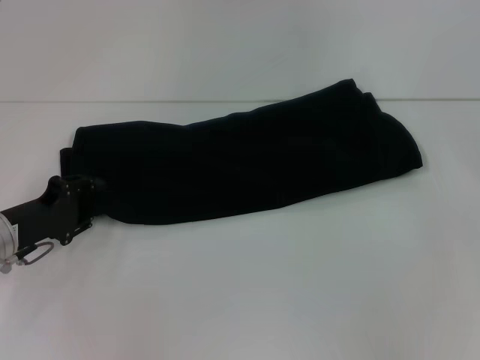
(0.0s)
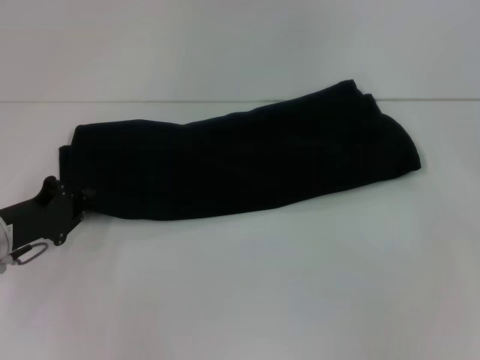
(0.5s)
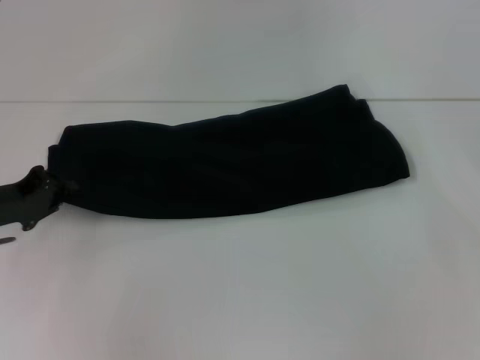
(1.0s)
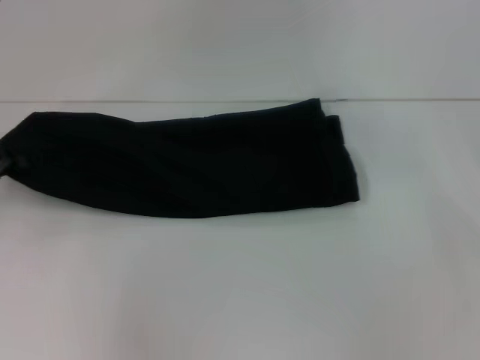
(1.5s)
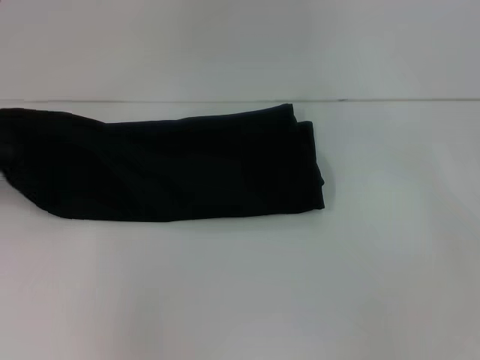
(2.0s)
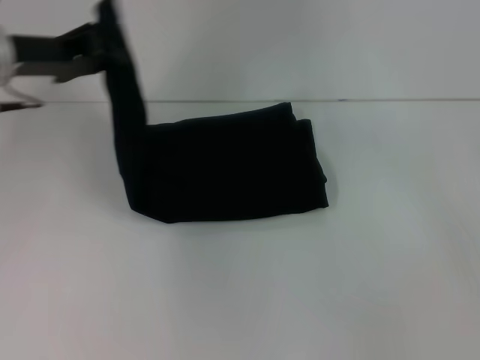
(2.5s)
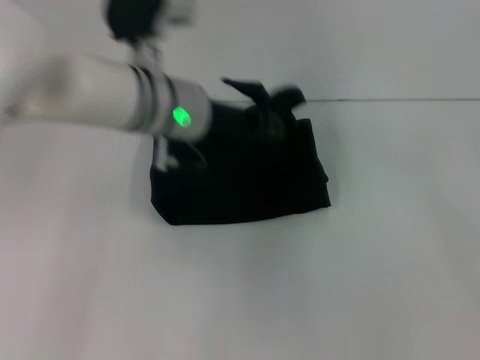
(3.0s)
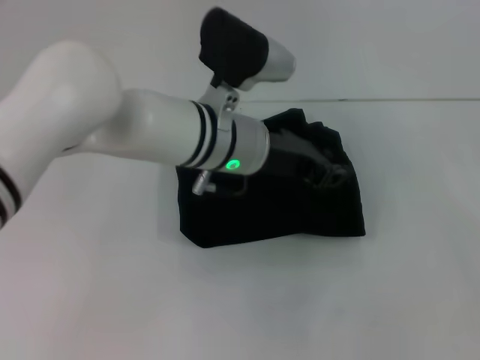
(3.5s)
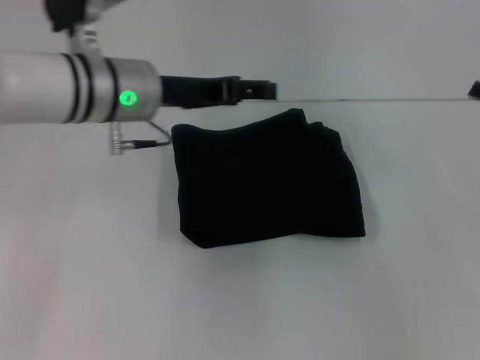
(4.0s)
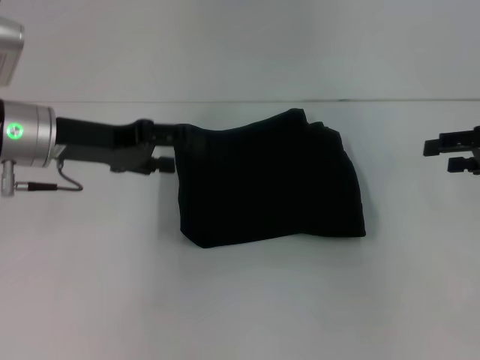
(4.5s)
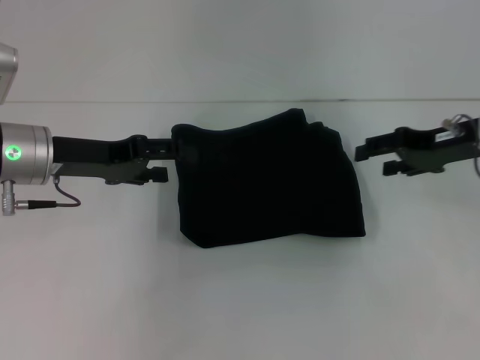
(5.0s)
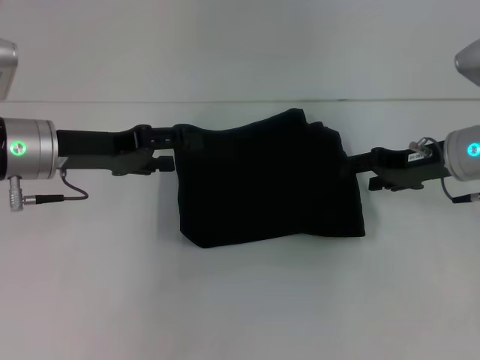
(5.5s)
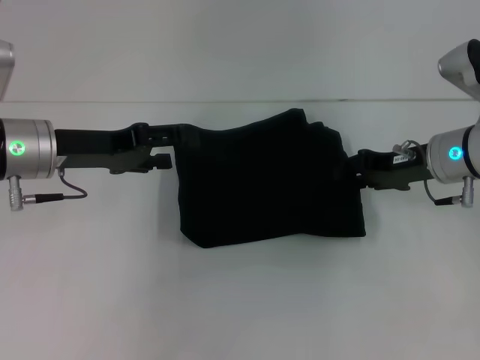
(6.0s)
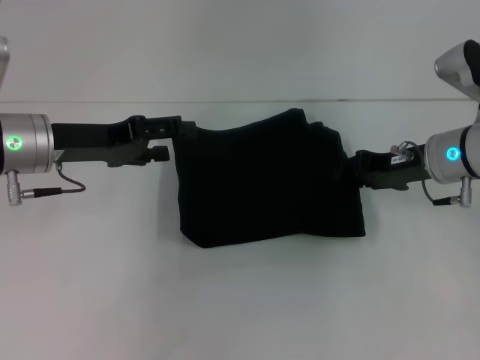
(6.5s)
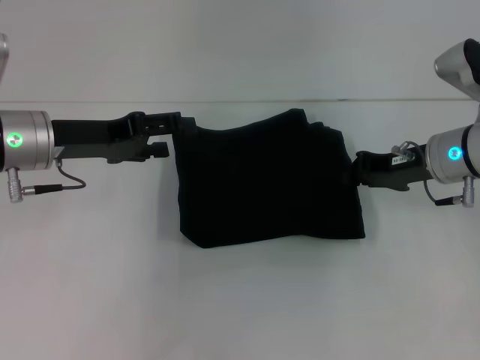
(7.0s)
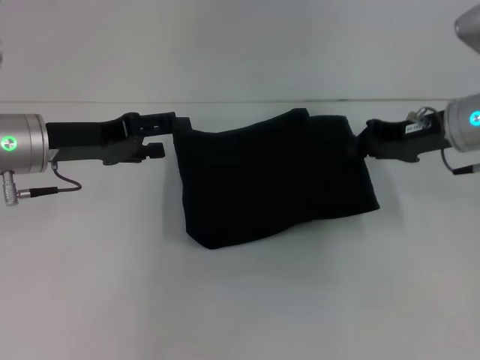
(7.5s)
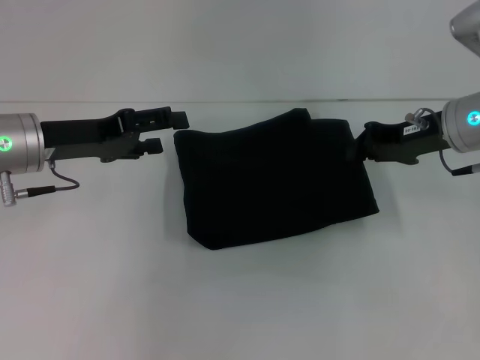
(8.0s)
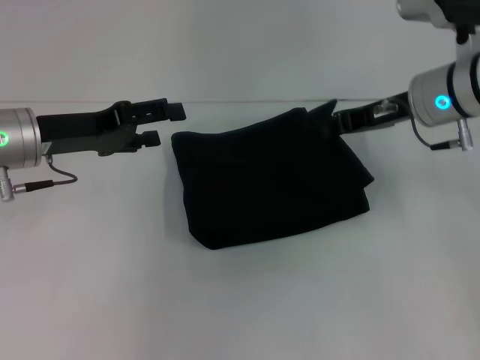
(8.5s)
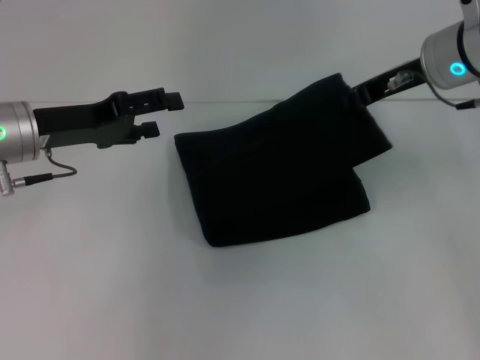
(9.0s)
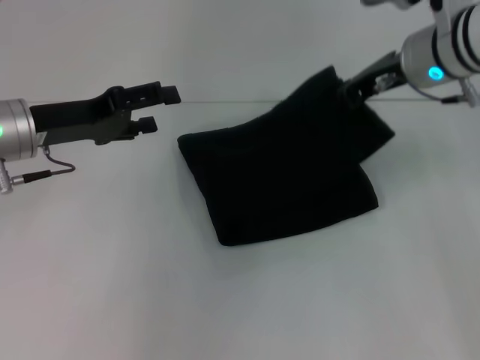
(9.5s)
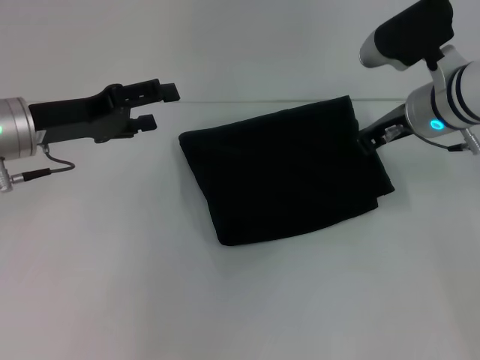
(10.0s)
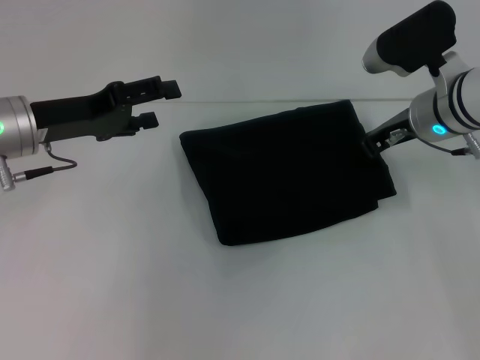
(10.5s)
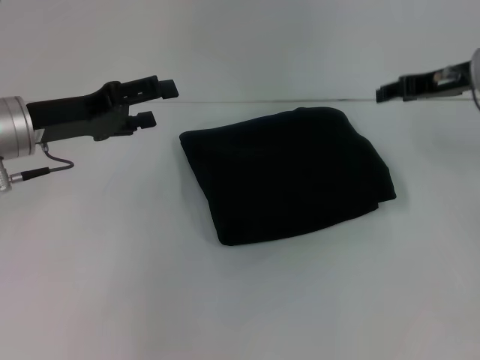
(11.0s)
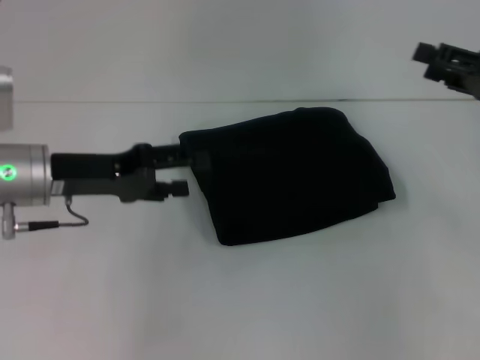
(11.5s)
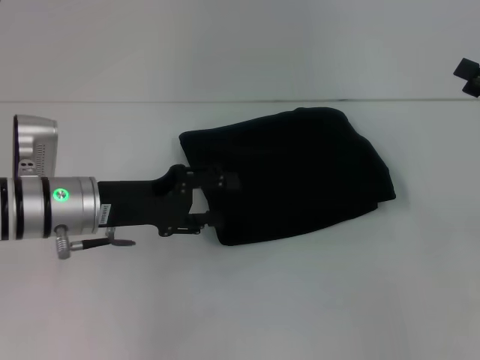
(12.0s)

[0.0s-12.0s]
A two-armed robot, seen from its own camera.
Step, 0.0s to 3.5s: Fold the clothes with your left hand.
0.0s to 2.0s: The left gripper heads upward and to the left, covering approximately 10 cm, and closes its fingers.
2.0s to 4.0s: The left gripper moves to the right, roughly 20 cm, and opens up.
4.0s to 6.0s: The right gripper heads to the left, covering roughly 15 cm; the left gripper shifts about 10 cm to the left.
6.0s to 8.0s: The right gripper closes up.
10.0s to 12.0s: The right gripper goes roughly 20 cm to the right and backward, and opens its fingers. The left gripper shifts roughly 10 cm downward and to the right.

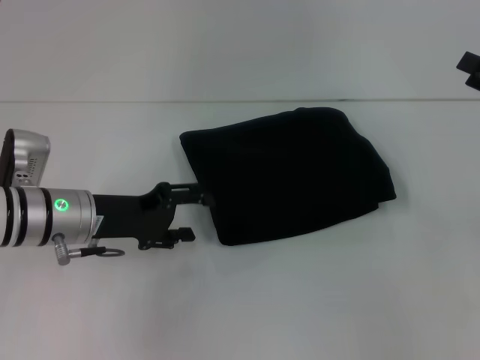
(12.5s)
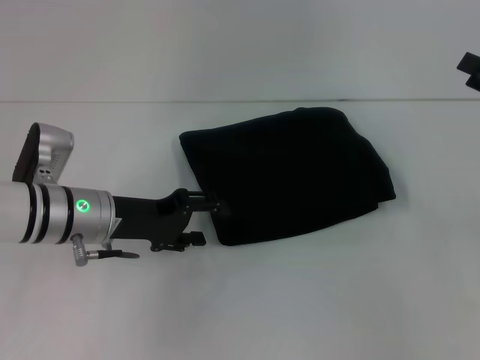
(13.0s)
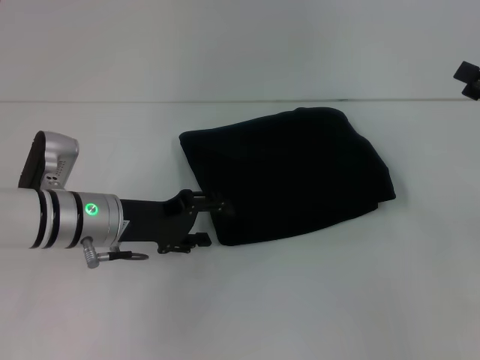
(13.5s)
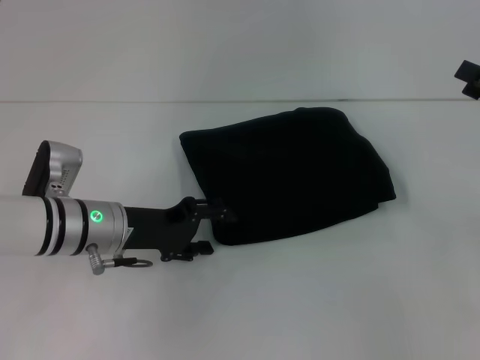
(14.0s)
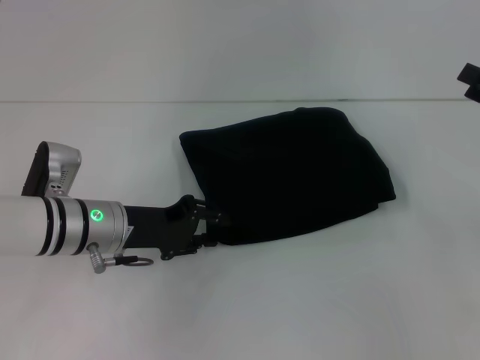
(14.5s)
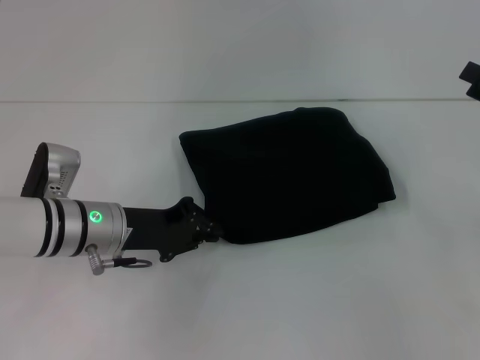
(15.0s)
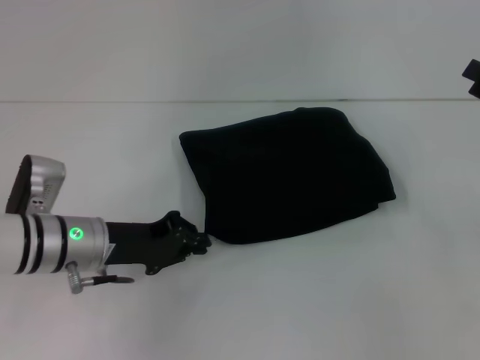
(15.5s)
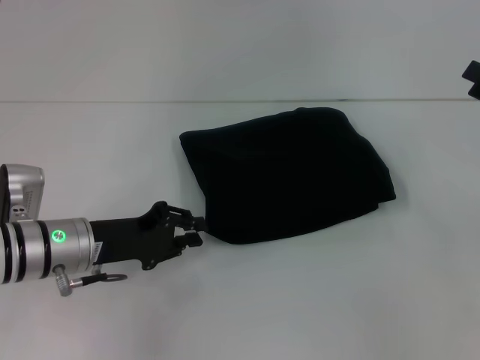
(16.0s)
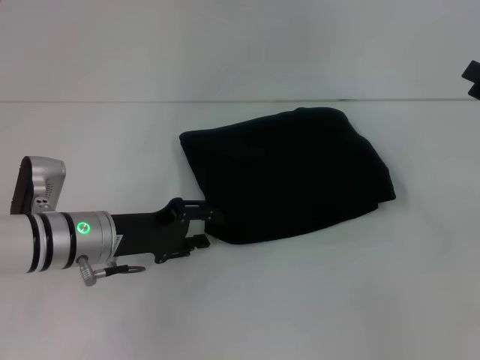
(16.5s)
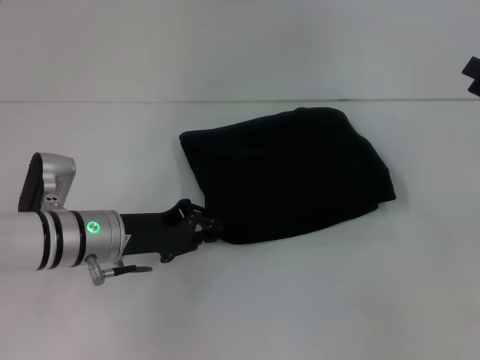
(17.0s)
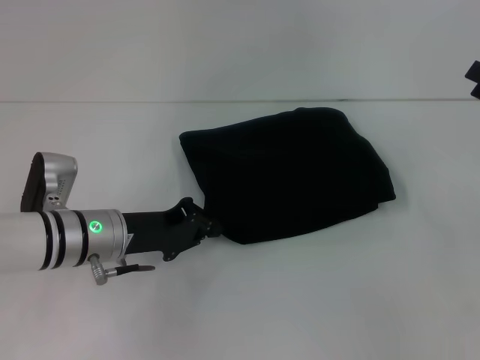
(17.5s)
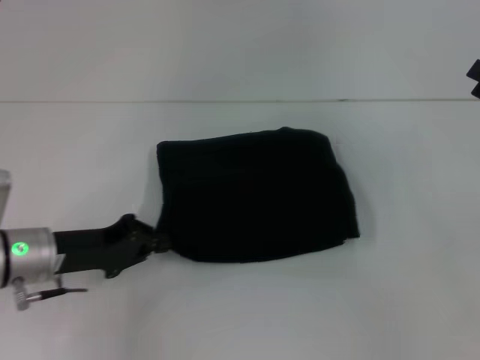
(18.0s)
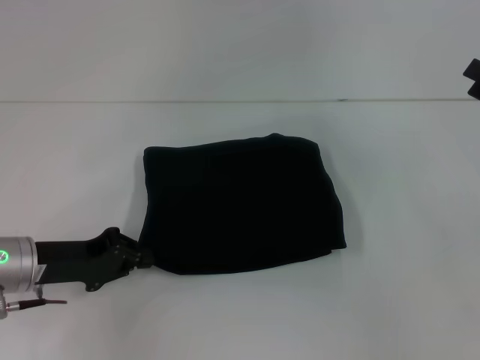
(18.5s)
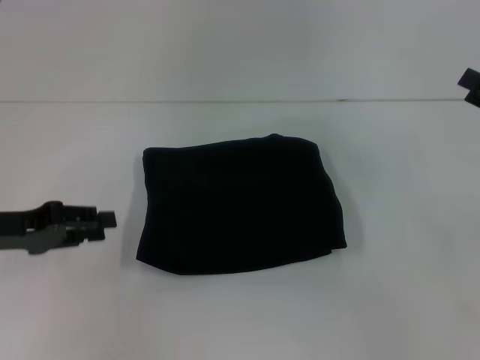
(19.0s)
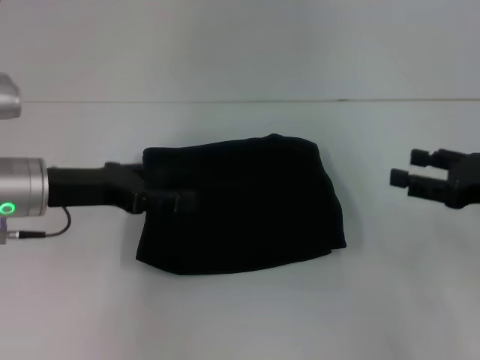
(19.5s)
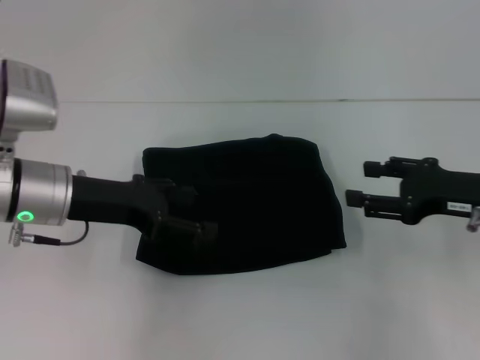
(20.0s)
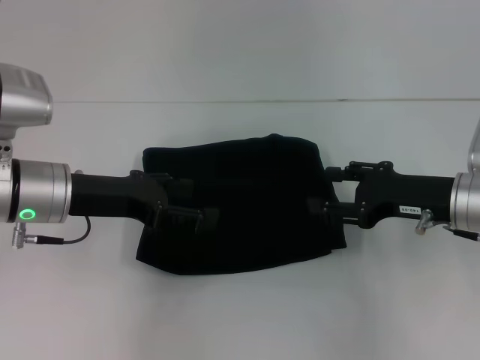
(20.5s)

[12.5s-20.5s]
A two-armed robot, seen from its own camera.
12.5s to 14.5s: The grippers move only a little.
14.5s to 16.5s: The left gripper closes, then reopens.
16.5s to 18.5s: The left gripper shifts about 5 cm to the left, and closes.
18.5s to 20.5s: The right gripper moves to the left, roughly 10 cm; the left gripper travels upward by some 5 cm, and opens its fingers.

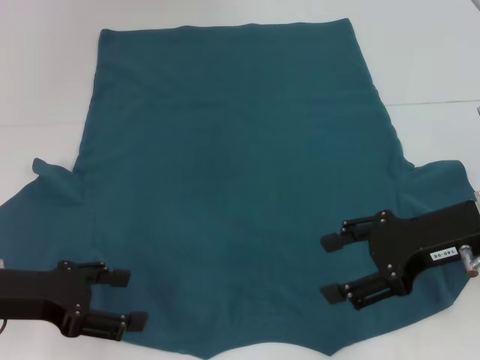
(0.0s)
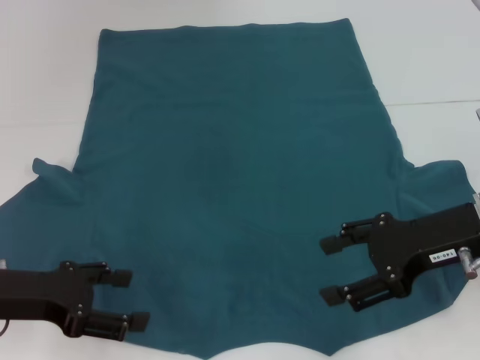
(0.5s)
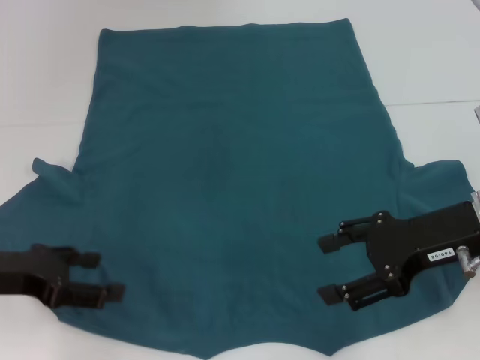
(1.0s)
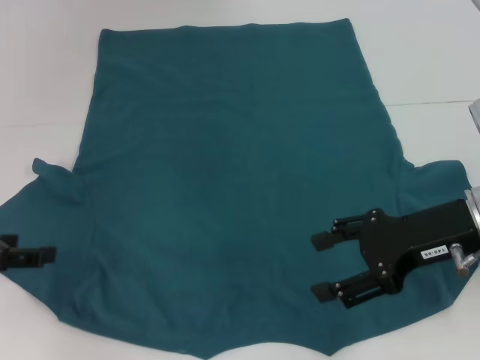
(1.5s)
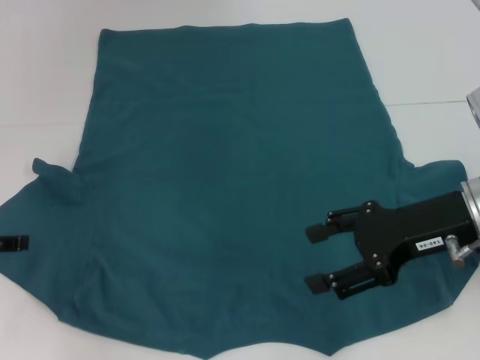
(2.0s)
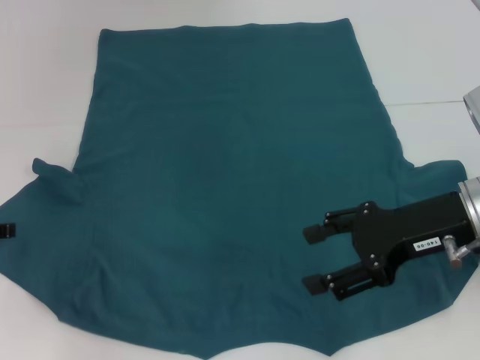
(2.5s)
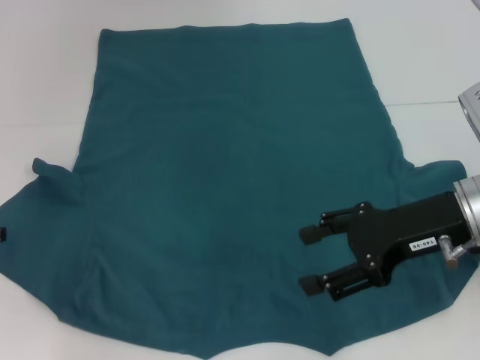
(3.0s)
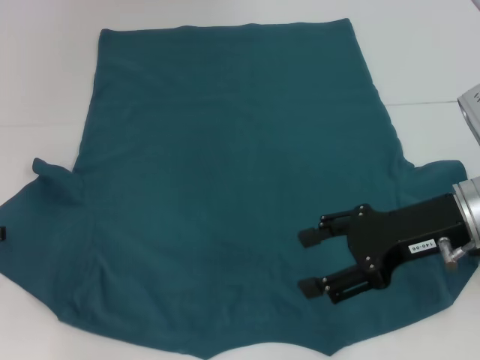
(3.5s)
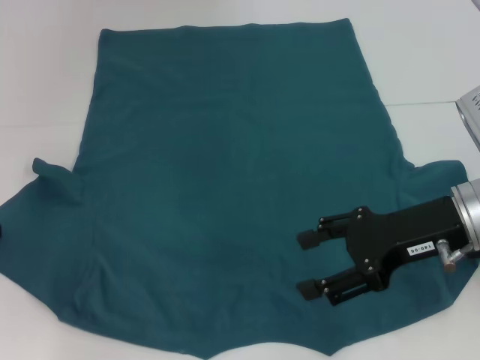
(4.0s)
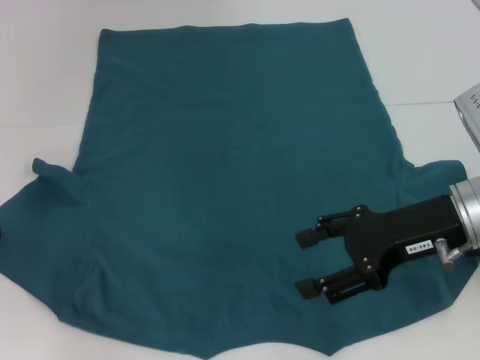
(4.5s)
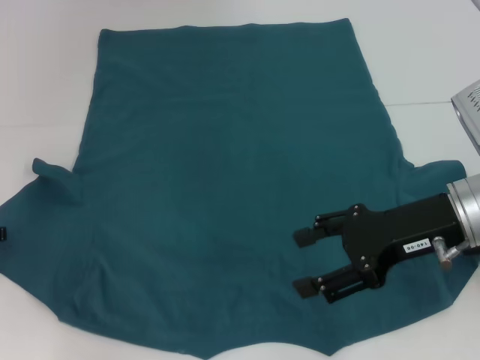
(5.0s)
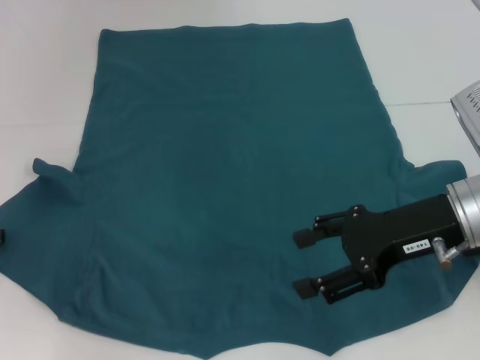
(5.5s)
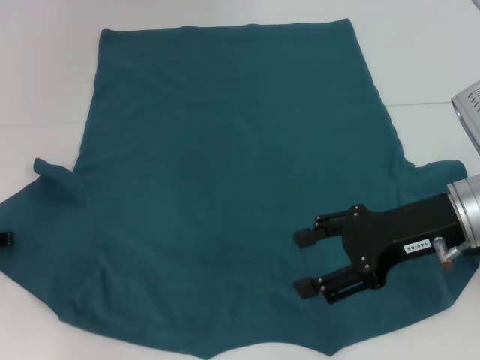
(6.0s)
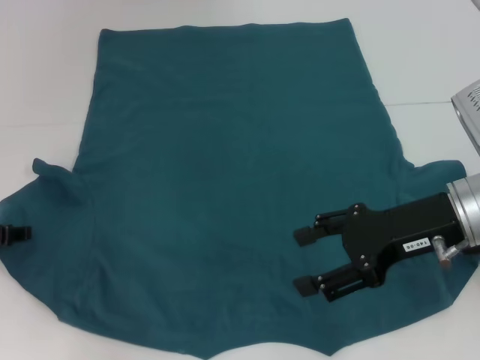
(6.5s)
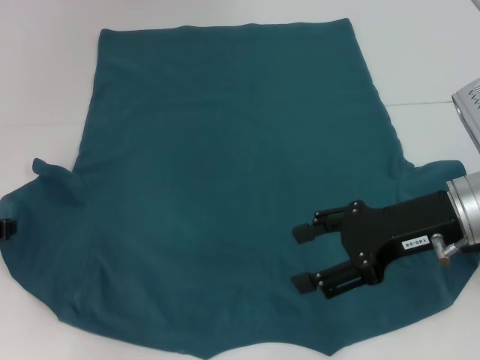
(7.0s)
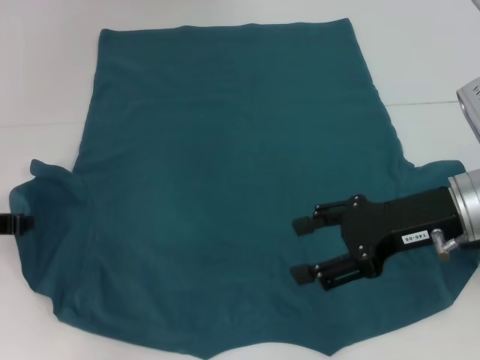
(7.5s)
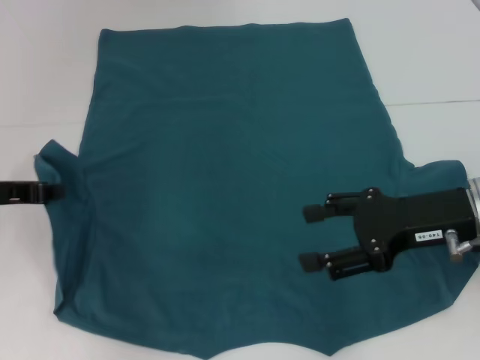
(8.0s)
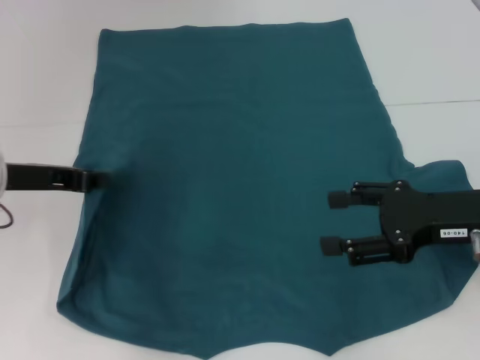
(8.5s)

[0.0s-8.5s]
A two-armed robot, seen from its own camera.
0.0s to 2.0s: The left gripper is displaced to the left by some 5 cm.
2.0s to 6.5s: There are only small adjustments of the grippers.
6.5s to 8.5s: The left gripper is displaced to the right and upward by roughly 10 cm, and closes.
